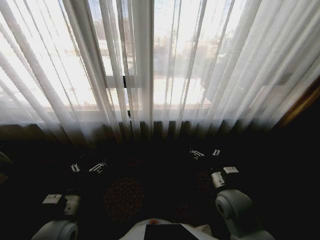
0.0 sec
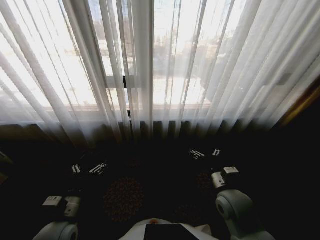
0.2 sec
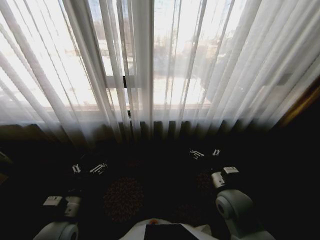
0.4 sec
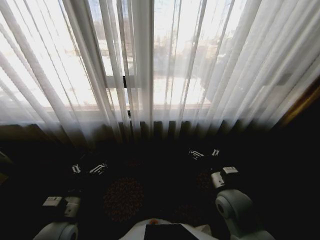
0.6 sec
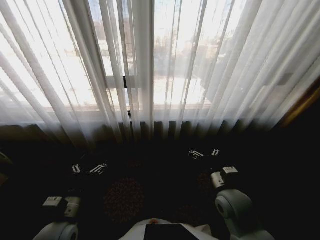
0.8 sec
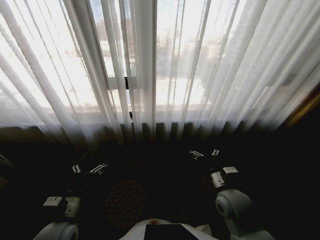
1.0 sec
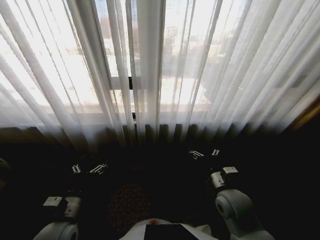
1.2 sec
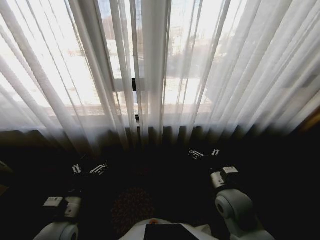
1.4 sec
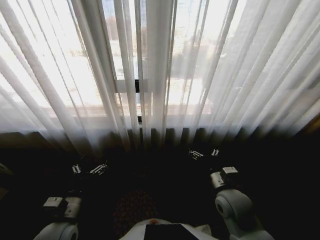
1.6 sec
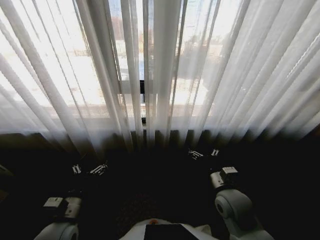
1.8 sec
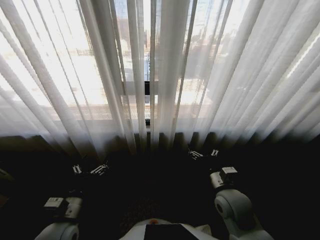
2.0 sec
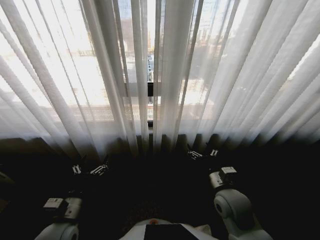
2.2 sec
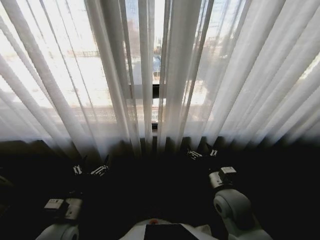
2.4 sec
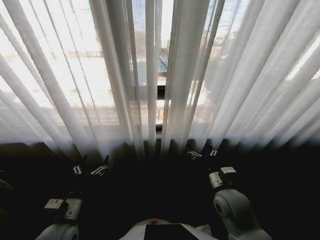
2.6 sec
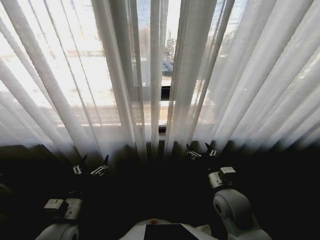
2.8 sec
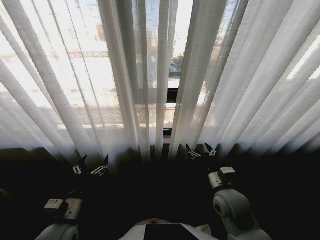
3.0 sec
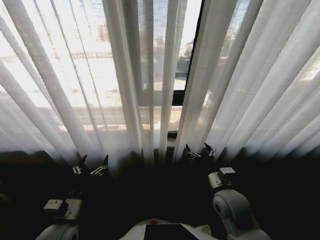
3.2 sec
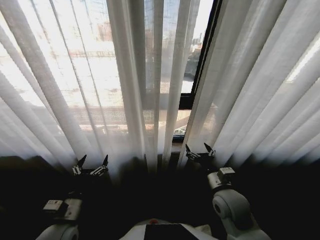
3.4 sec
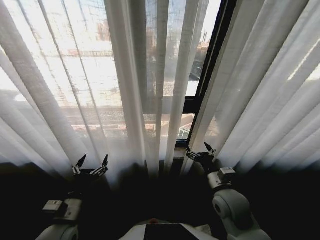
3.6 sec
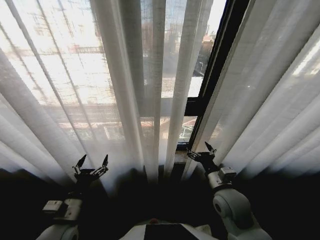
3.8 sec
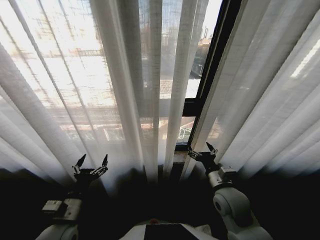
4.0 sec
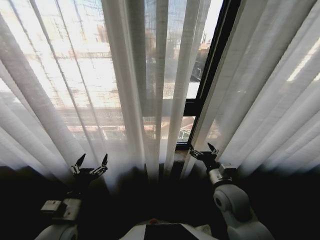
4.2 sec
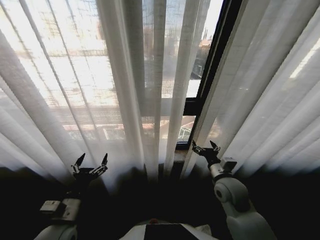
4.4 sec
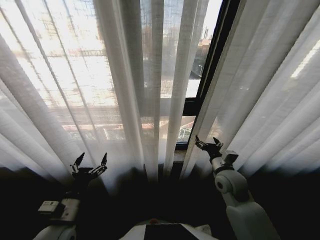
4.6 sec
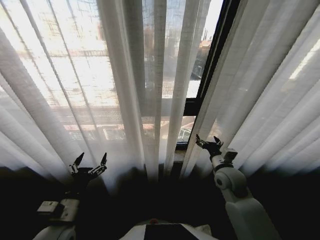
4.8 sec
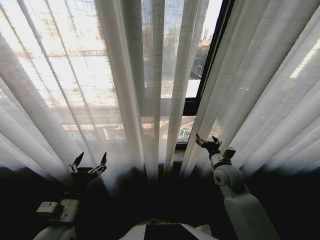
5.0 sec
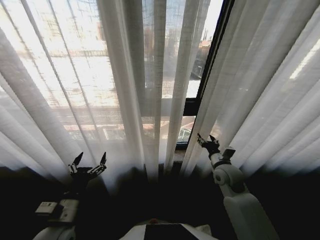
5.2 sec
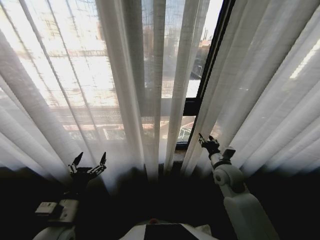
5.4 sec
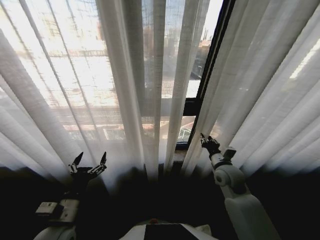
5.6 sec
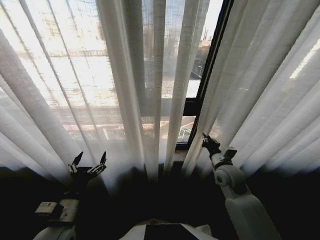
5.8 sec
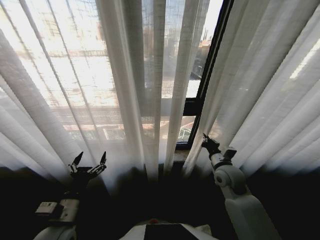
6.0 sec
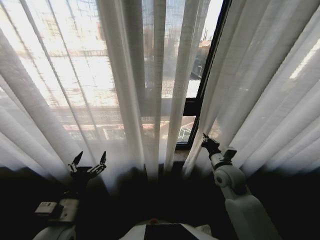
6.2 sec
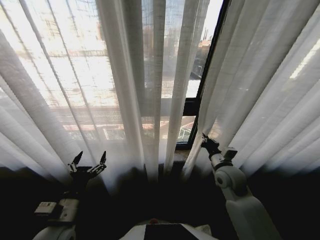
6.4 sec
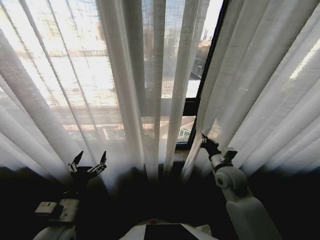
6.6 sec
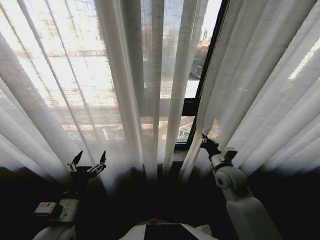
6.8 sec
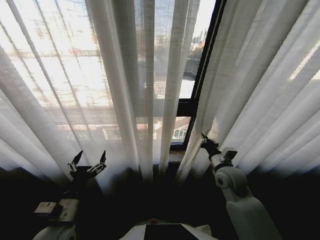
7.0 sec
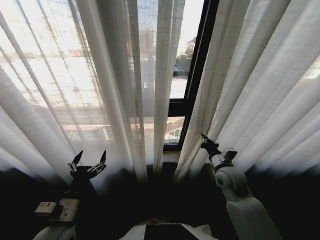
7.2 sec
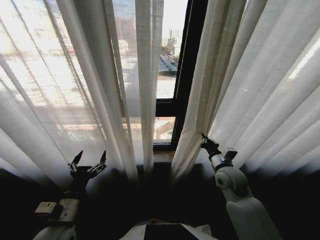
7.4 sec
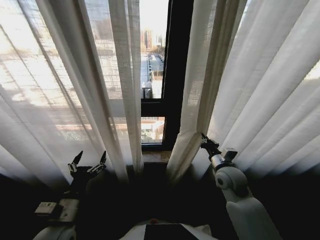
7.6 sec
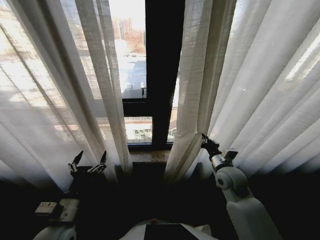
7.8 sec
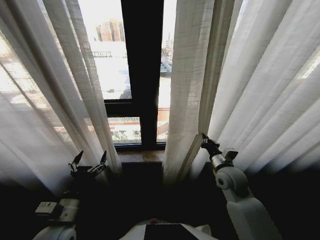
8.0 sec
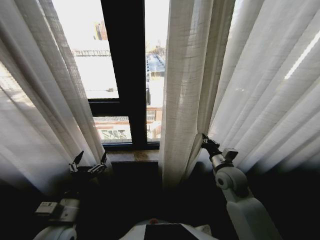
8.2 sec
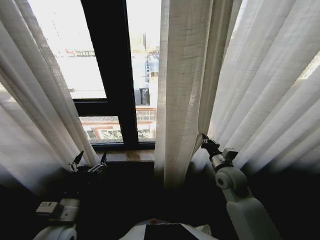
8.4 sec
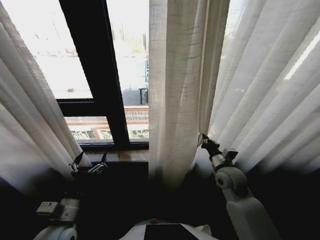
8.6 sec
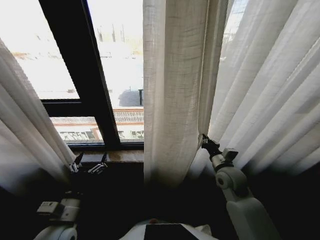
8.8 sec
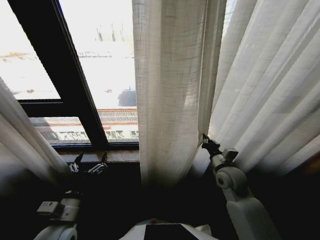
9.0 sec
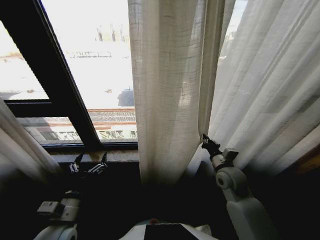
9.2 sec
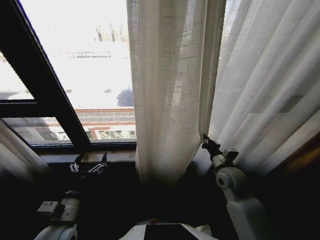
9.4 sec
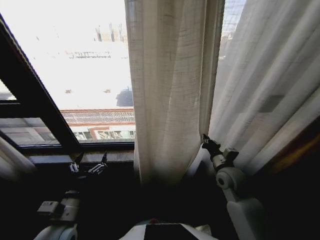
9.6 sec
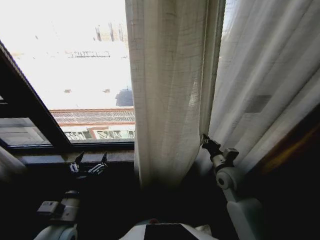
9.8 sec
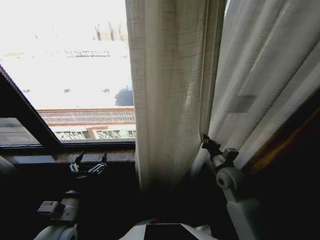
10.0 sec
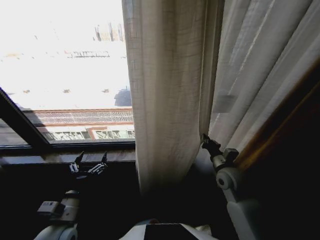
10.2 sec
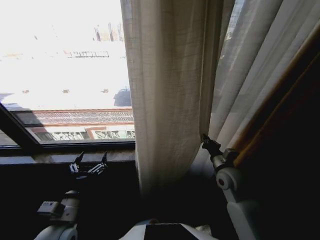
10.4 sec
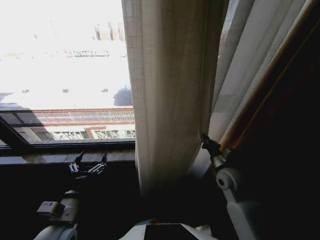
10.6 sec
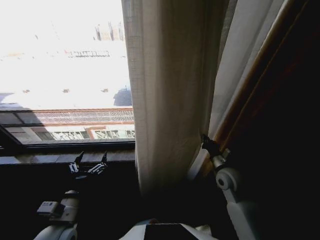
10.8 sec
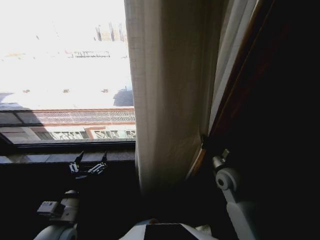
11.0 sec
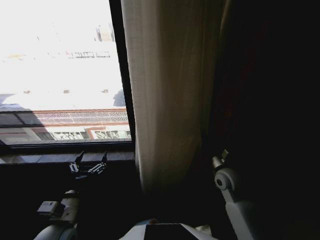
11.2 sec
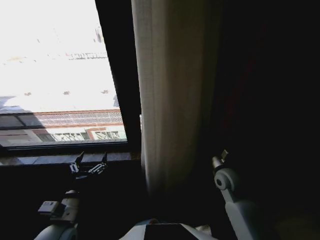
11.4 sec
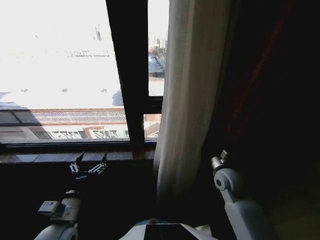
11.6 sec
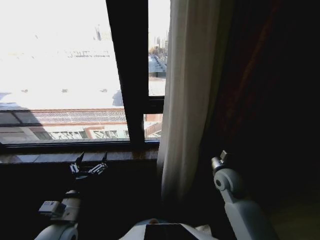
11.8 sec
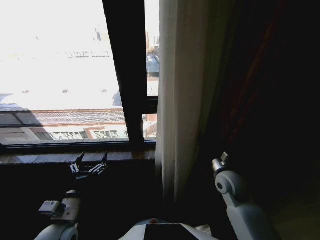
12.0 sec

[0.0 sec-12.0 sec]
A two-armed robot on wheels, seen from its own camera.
Task of the whole recording: Open the curtains by pulling them apart, changing their state from closed to fully open.
4.4 sec to 6.0 sec: The right gripper shifts by approximately 5 cm, and closes.
10.4 sec to 12.0 sec: The right gripper opens its fingers.

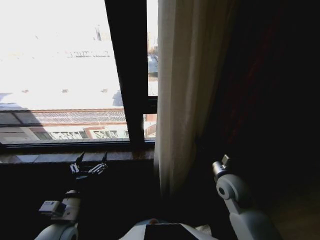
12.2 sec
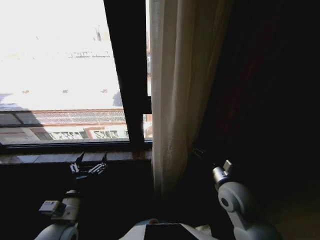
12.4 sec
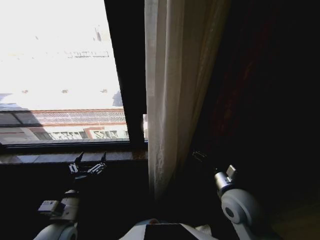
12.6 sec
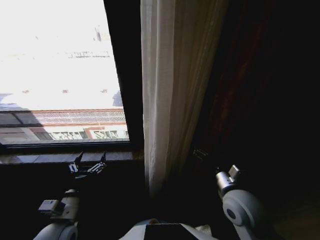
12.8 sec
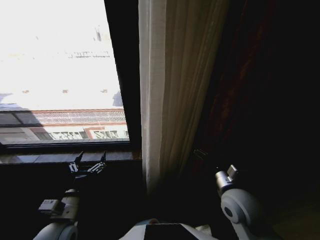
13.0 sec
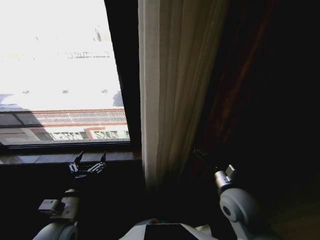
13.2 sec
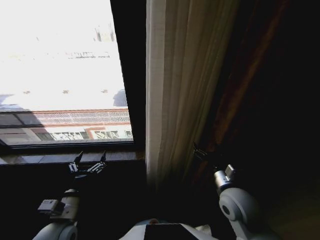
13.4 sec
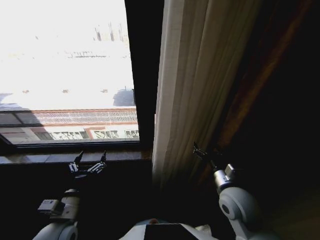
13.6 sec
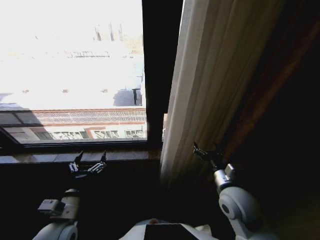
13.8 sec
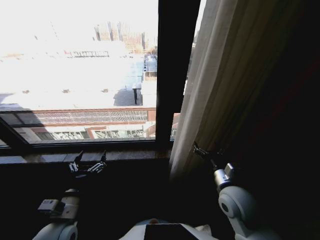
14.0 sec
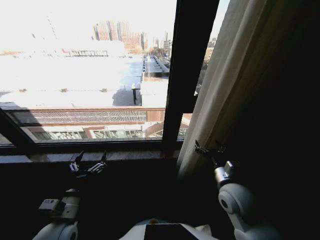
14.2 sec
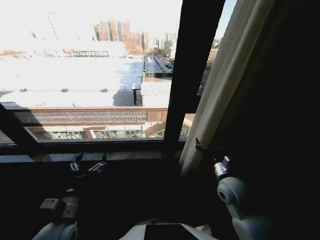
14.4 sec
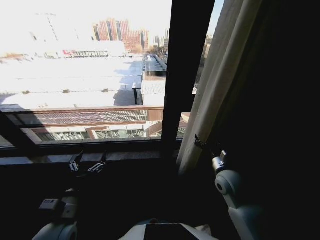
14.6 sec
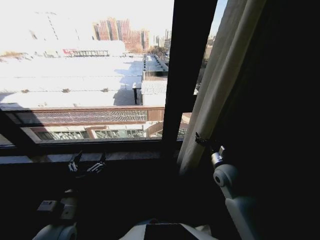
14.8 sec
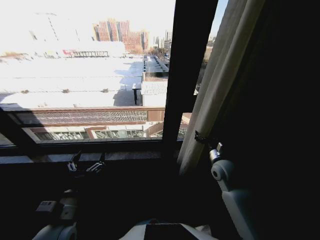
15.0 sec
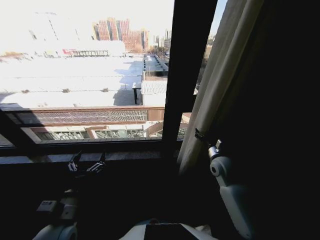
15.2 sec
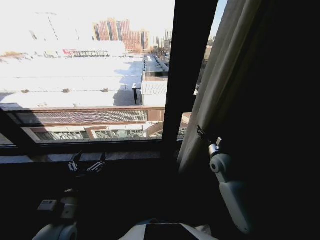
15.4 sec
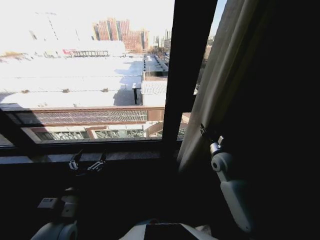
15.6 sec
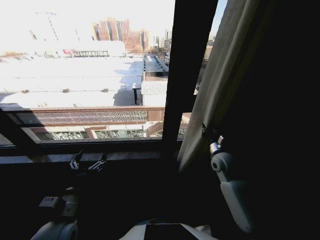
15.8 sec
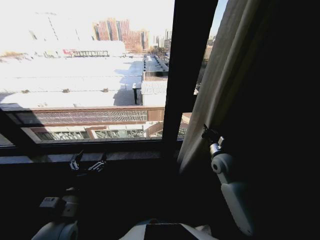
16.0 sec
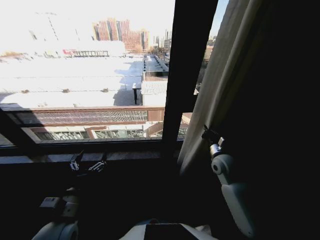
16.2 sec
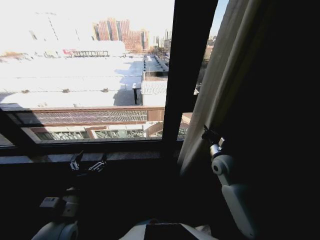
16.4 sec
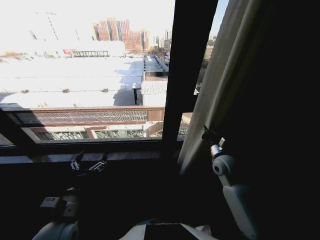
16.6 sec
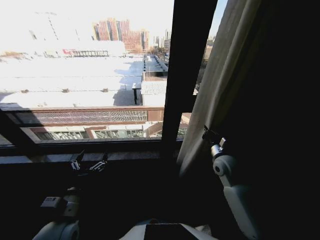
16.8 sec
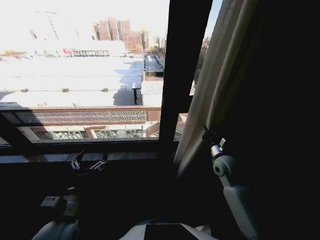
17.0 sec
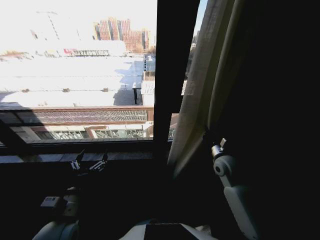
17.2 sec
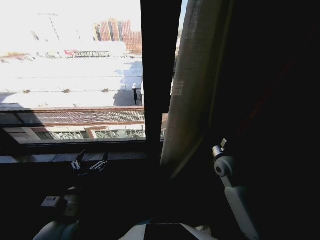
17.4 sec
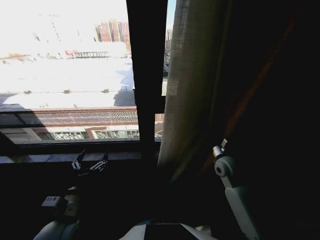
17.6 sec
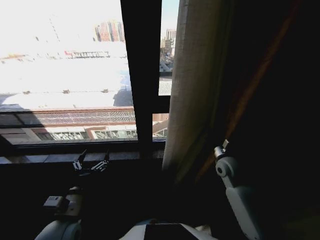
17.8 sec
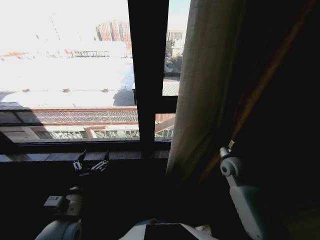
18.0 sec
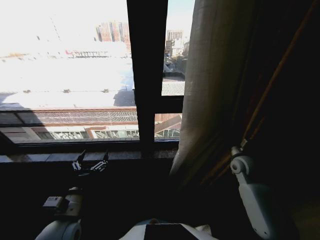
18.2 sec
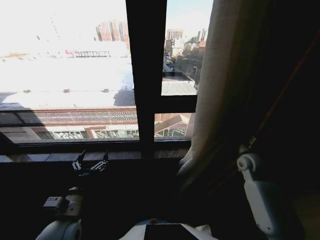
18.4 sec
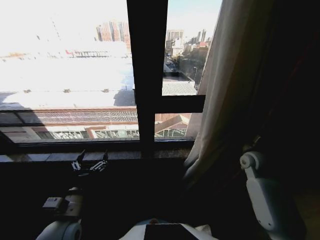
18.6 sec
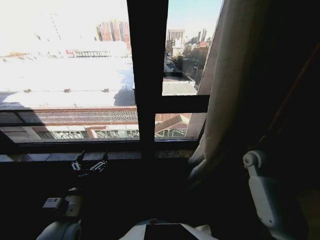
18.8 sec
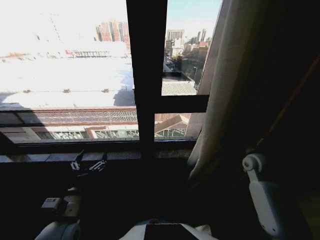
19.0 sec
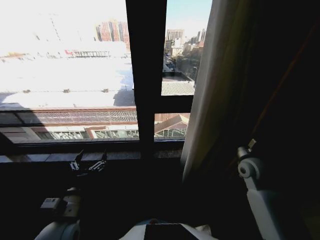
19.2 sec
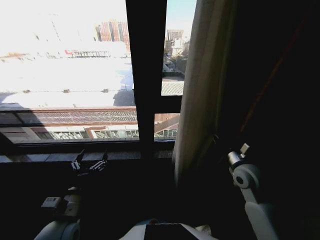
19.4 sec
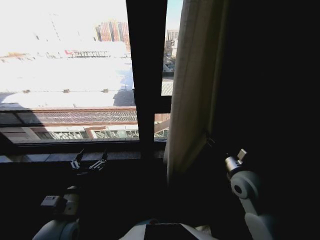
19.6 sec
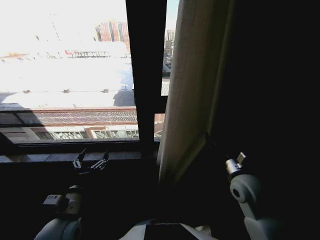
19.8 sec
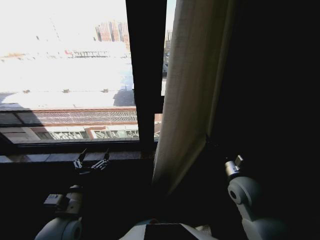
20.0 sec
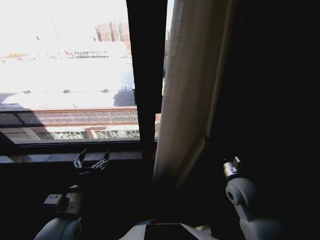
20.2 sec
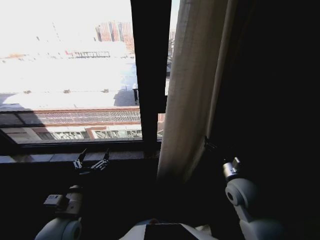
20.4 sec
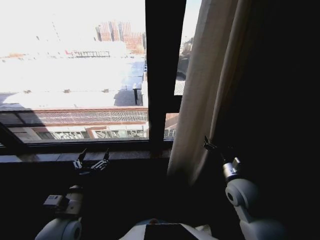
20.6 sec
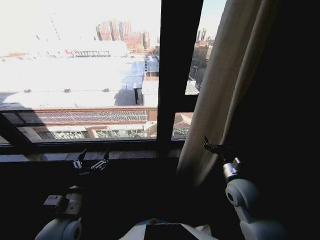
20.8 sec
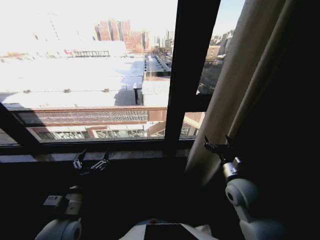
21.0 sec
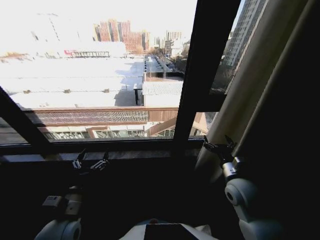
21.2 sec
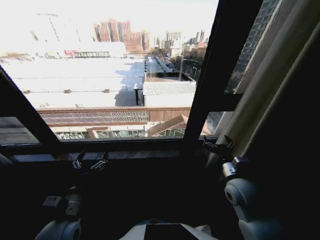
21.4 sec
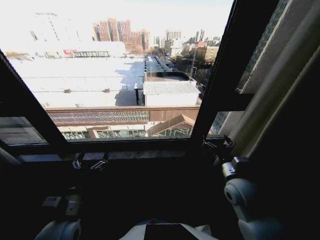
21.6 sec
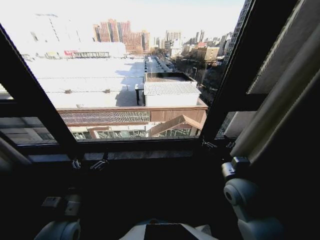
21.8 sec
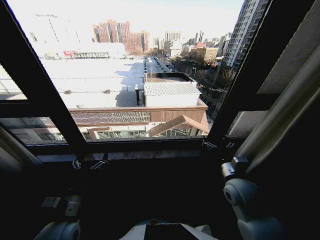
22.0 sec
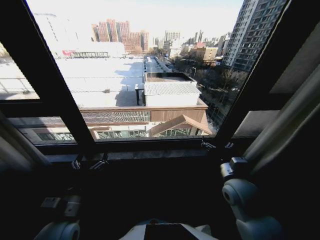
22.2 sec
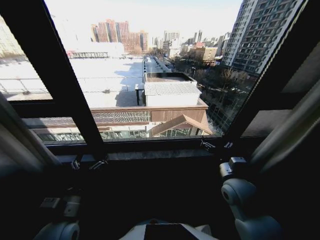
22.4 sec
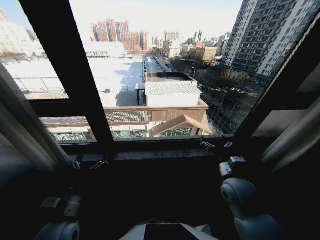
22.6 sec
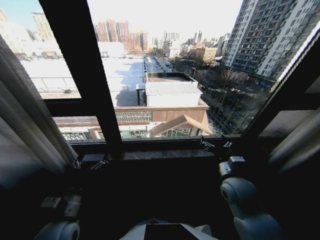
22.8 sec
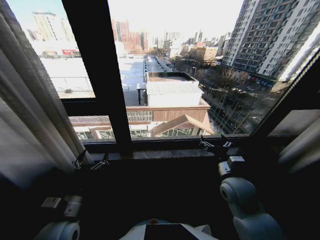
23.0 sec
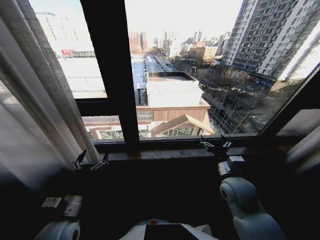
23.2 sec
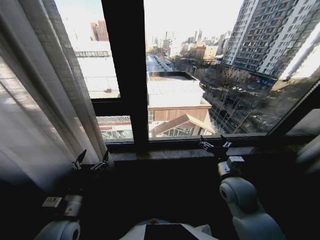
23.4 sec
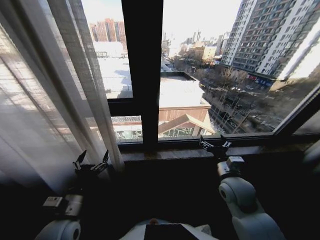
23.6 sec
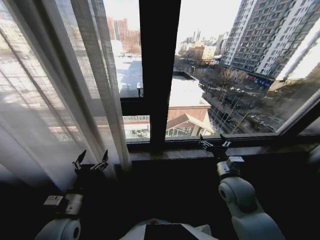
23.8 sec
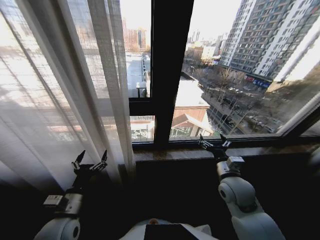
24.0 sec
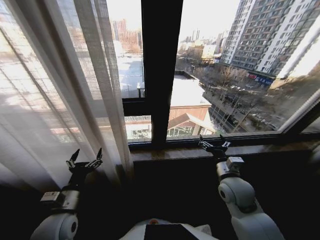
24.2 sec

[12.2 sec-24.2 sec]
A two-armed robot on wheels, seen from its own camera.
Task of the whole recording: Open the curtains by pulling them apart, changing their state from closed to fully open.
12.2 sec to 13.8 sec: The right gripper is displaced backward by roughly 5 cm.
13.8 sec to 15.2 sec: The right gripper goes roughly 15 cm forward.
15.2 sec to 16.6 sec: The right gripper closes.
16.6 sec to 18.2 sec: The right gripper goes about 10 cm to the right.
18.2 sec to 19.8 sec: The right gripper is displaced backward and to the left by some 15 cm, and opens its fingers.
